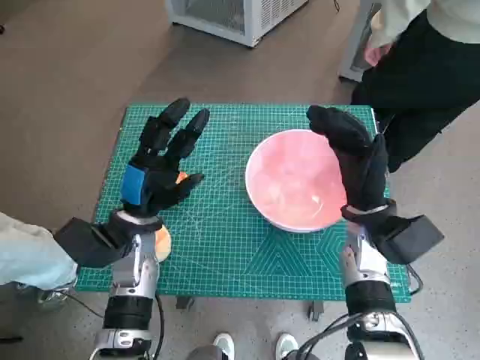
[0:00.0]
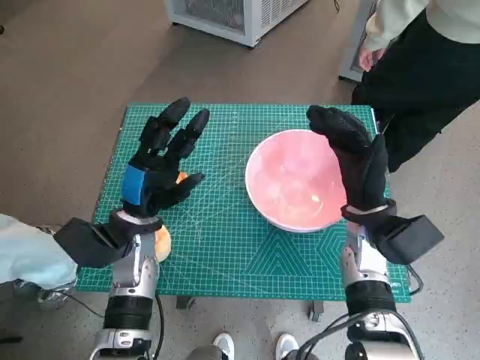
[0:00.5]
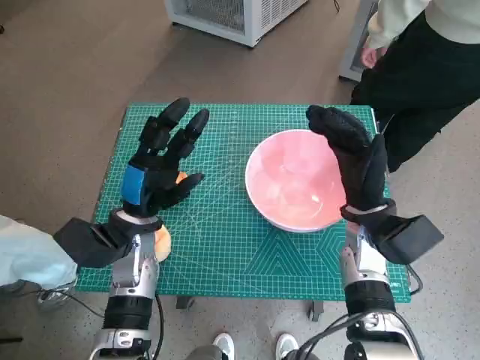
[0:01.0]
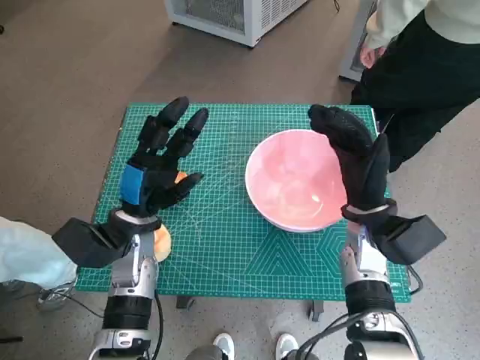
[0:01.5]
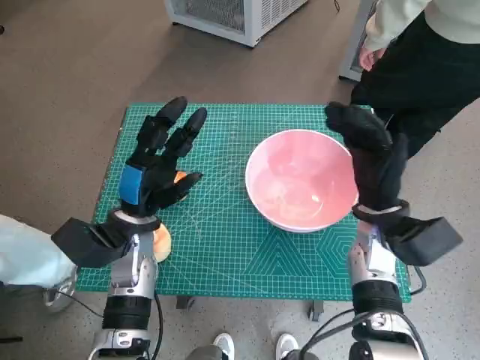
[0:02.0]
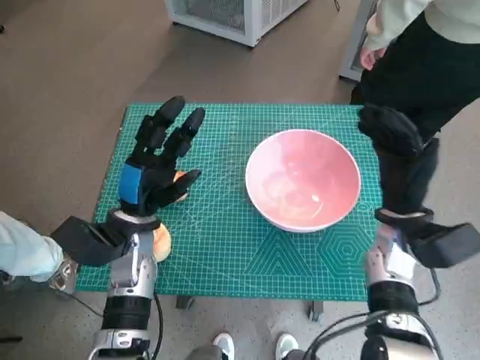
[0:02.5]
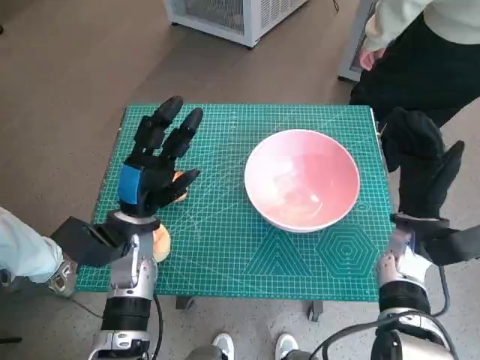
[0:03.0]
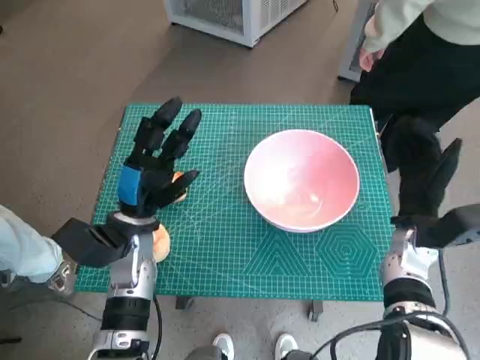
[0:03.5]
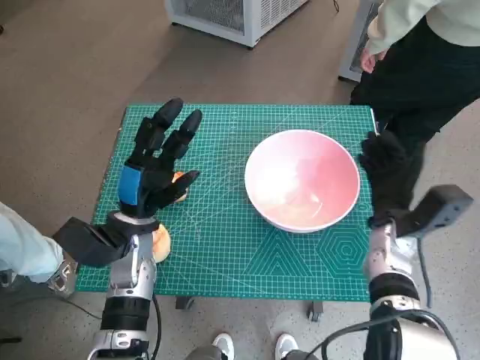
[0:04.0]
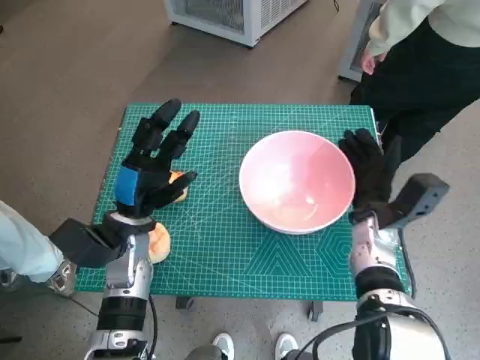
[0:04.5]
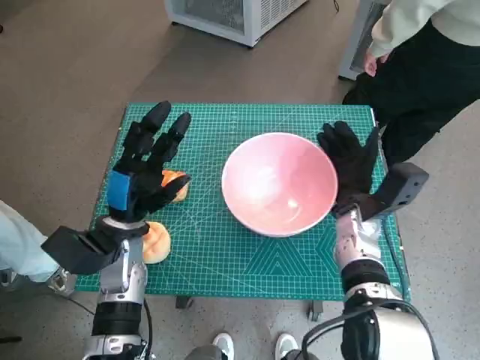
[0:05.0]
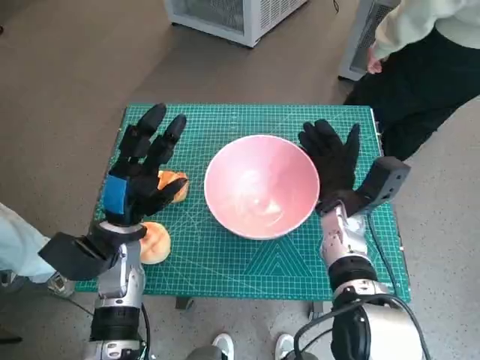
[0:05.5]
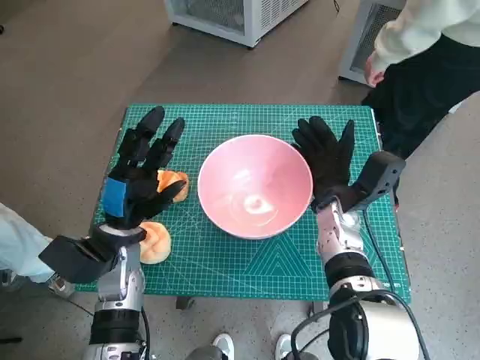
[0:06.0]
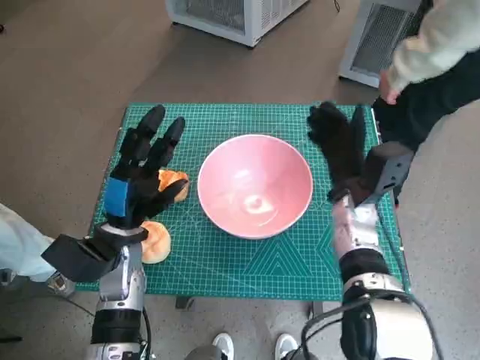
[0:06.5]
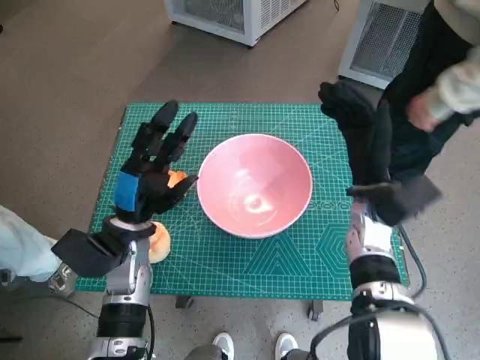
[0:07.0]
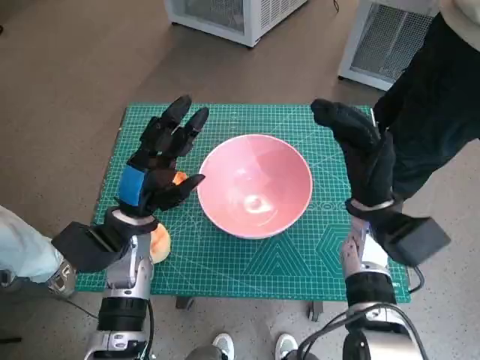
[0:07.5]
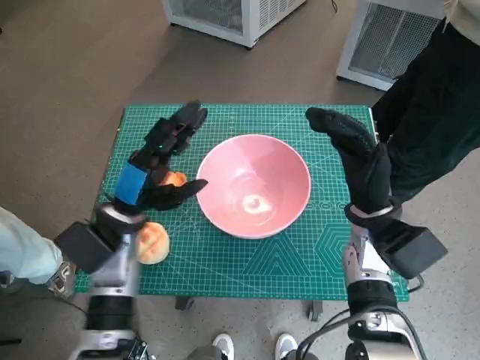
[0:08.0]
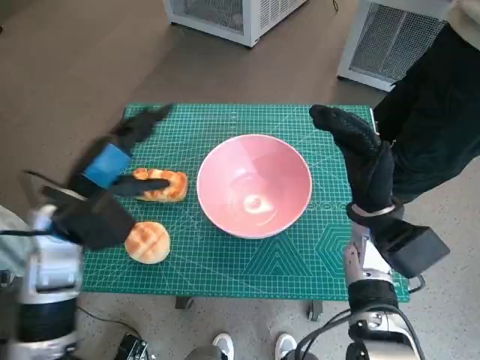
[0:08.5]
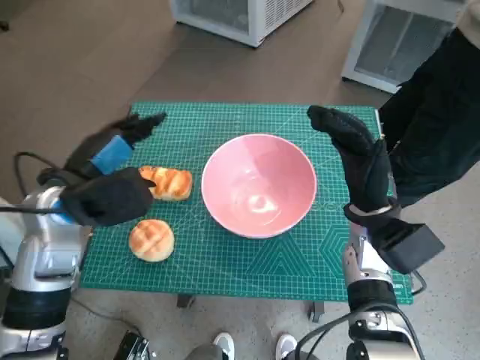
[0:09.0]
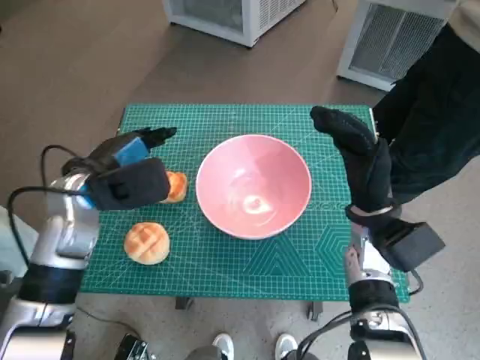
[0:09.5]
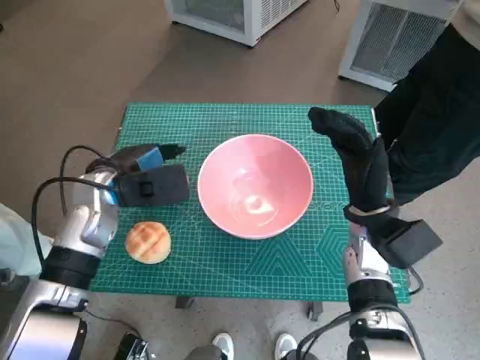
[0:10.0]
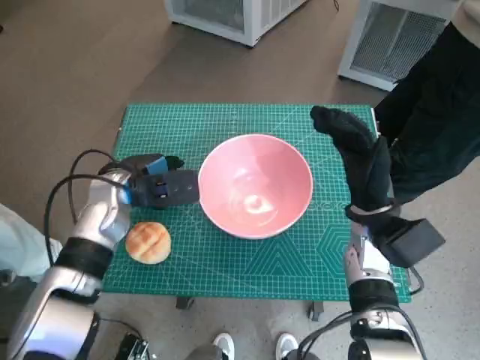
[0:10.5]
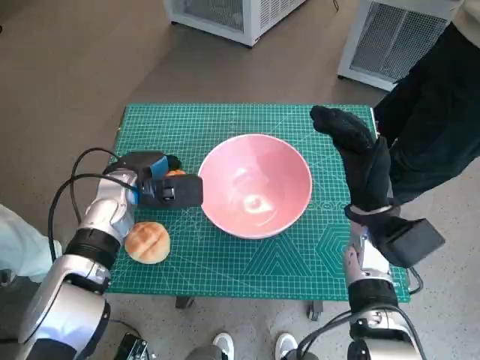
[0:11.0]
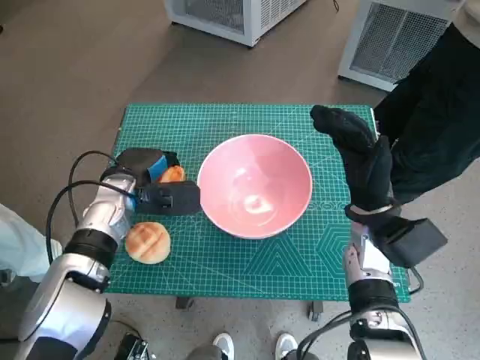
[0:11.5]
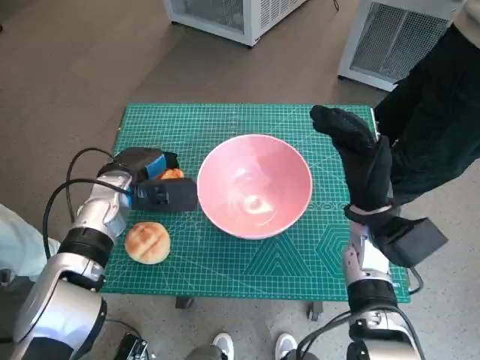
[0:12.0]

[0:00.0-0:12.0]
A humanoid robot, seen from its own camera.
Task of the whole recording: Push the bowl into the center of the table and put the bread into the bowl.
Step, 0:00.0 to 0:06.0: Move the pink bowl to the center of table with right hand.
Step, 0:06.5 to 0:10.5: Grasp the long bread with left hand.
0:02.0 to 0:04.0: The right hand ends up some 5 cm from where it was.
0:04.0 to 0:06.0: The right hand moves to the left, some 10 cm.
0:06.0 to 0:08.0: The right hand shifts by some 5 cm.
0:08.0 to 0:10.0: The left hand shifts by some 5 cm.
0:10.0 to 0:12.0: The hands move only a little.

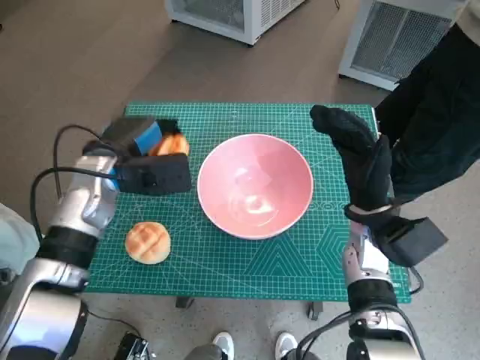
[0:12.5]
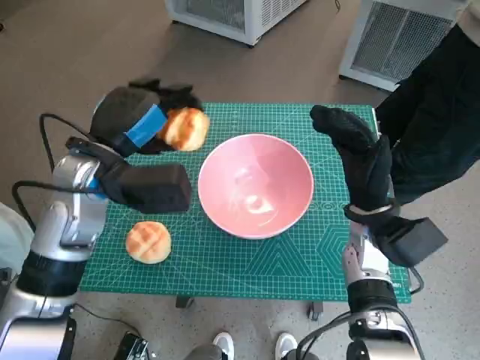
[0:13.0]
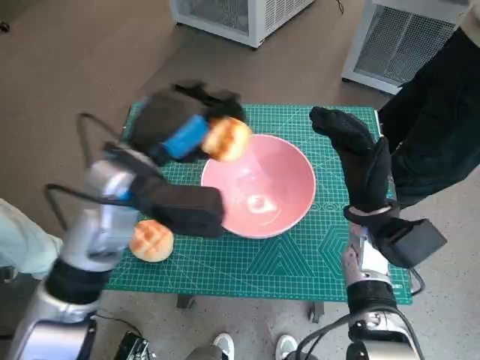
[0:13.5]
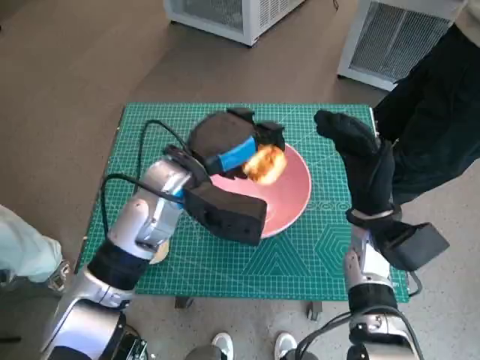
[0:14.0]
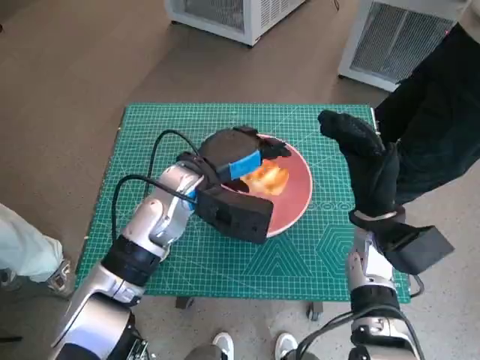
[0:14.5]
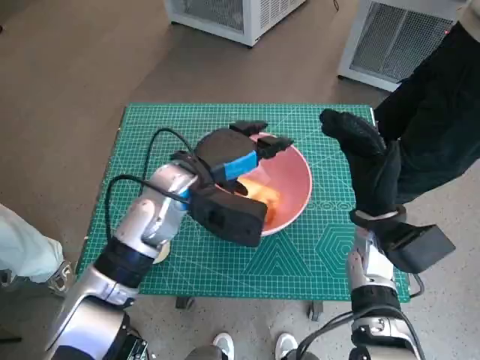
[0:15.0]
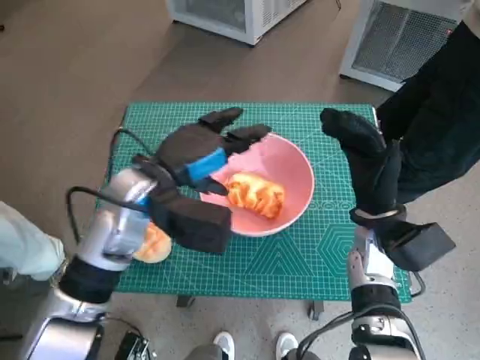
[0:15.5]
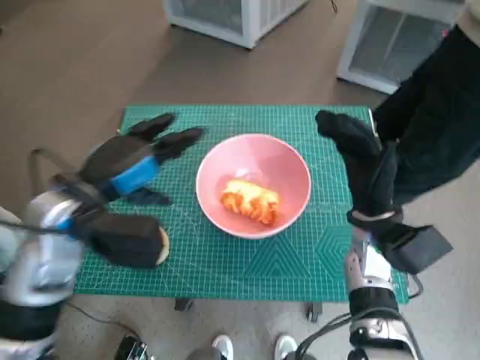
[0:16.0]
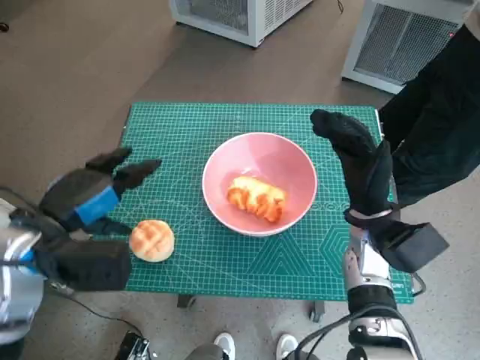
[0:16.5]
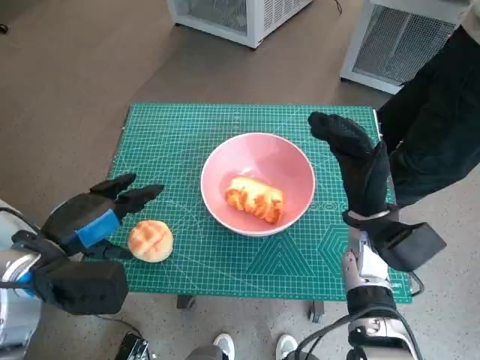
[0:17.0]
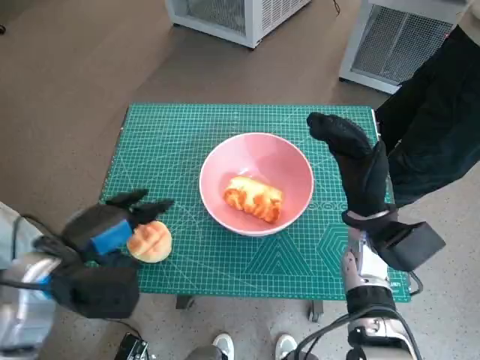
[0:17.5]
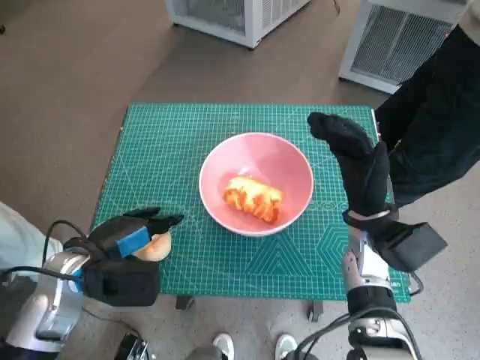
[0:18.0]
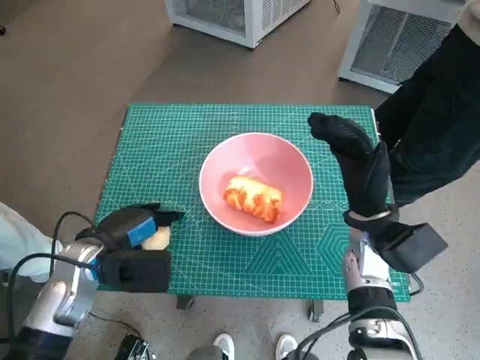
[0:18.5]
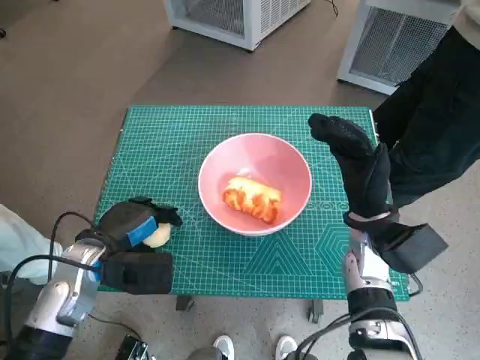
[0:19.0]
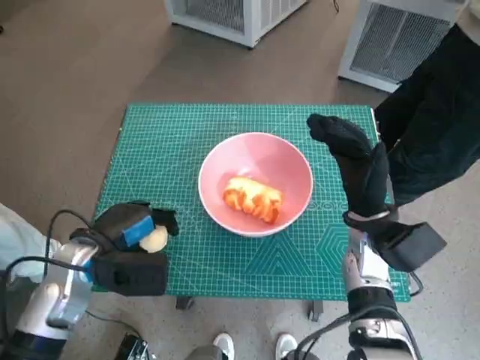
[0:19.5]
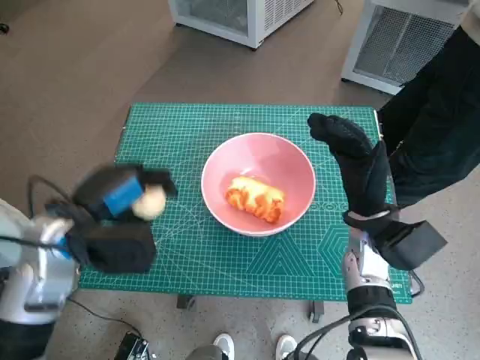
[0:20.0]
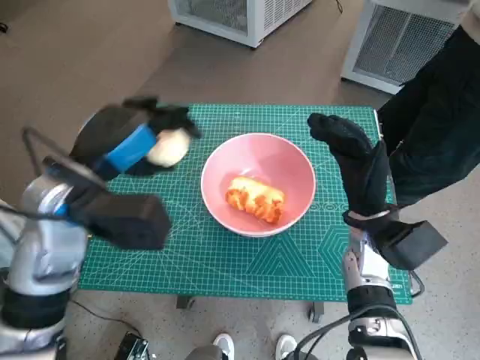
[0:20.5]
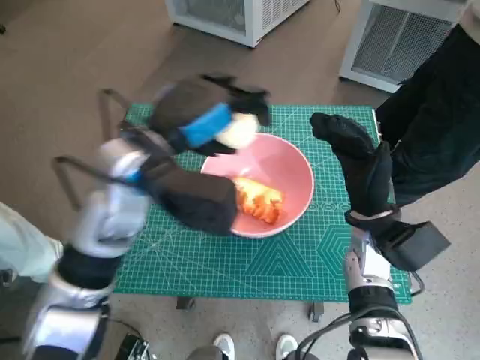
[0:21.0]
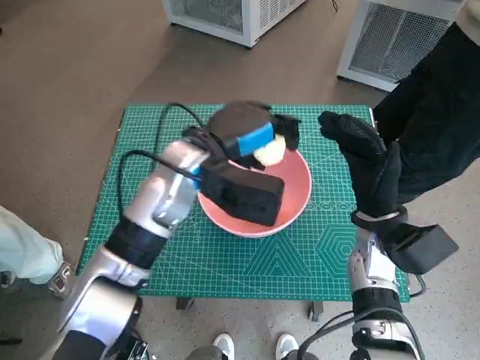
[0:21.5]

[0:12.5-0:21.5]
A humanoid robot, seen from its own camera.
Task of the whole recording: Push the bowl into the center of the table and put the bread into the bowl.
Step, 0:12.5 to 0:14.5: Place the long bread in pink bowl with left hand.
Step, 0:15.0 to 0:18.5: Grasp the round bread with left hand.
0:12.5 to 0:14.5: The left hand moves to the right, roughly 10 cm.
0:14.5 to 0:17.0: The left hand moves to the left and backward, approximately 20 cm.
0:17.0 to 0:19.5: The left hand goes about 5 cm downward.
0:19.5 to 0:21.5: The left hand travels to the right, forward and upward by about 20 cm.

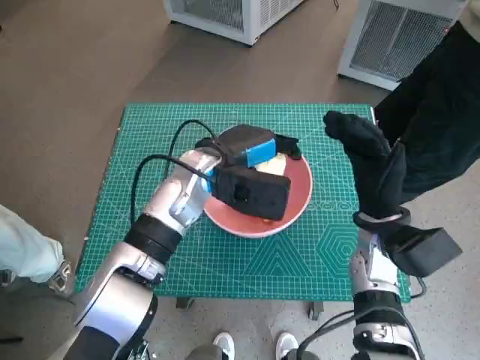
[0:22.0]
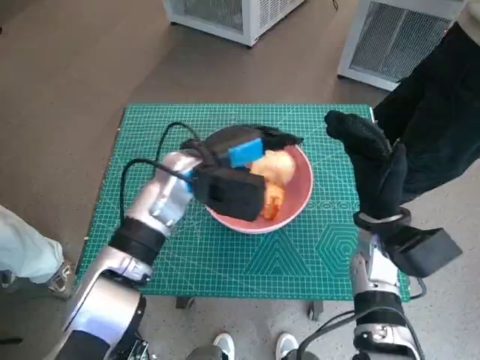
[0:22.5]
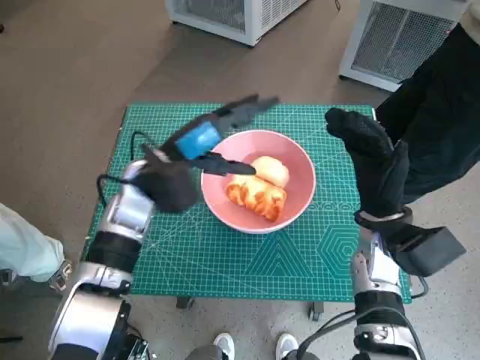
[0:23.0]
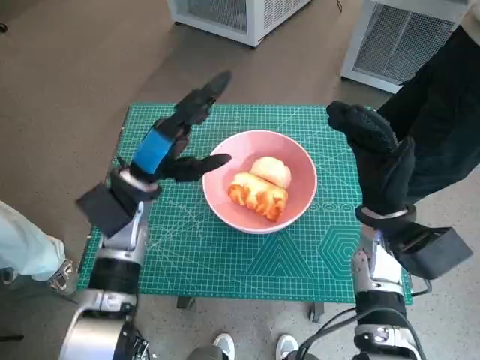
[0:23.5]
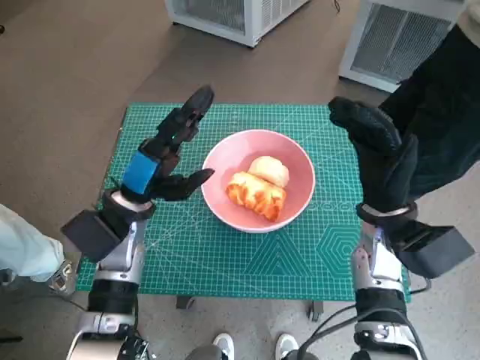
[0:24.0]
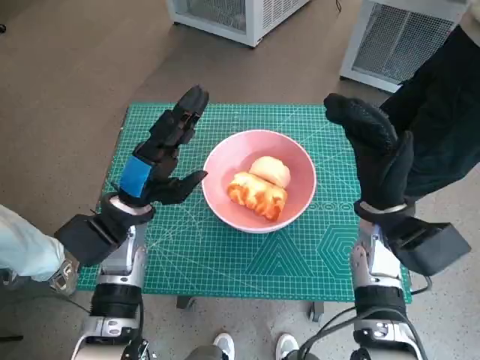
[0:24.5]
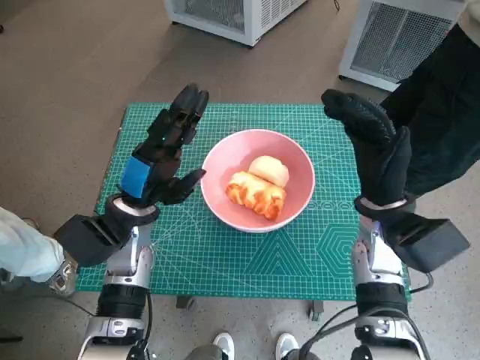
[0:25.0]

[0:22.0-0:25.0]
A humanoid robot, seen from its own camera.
Task of the whole recording: Push the bowl into the center of the table and put the bread into the bowl.
0:22.0 to 0:23.5: The left hand shifts about 10 cm to the left.
0:23.5 to 0:25.0: There are only small adjustments of the hands.
